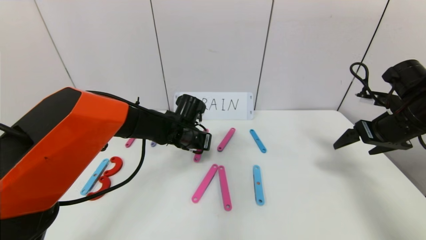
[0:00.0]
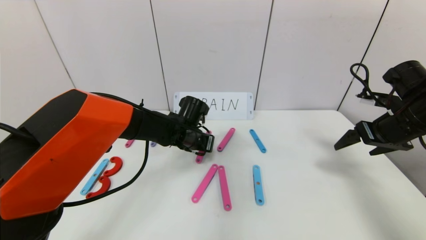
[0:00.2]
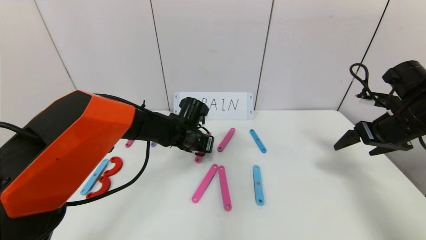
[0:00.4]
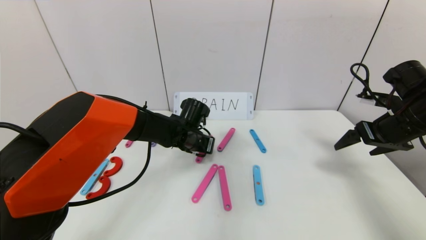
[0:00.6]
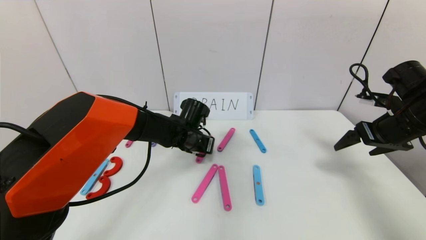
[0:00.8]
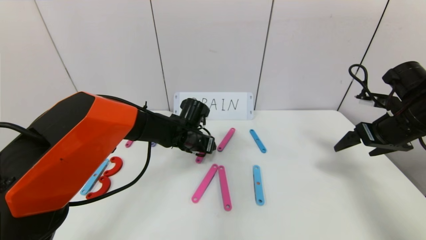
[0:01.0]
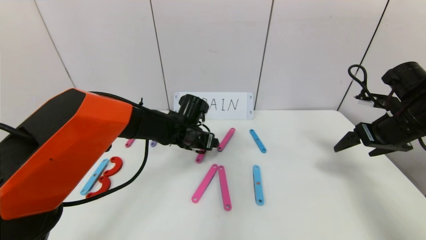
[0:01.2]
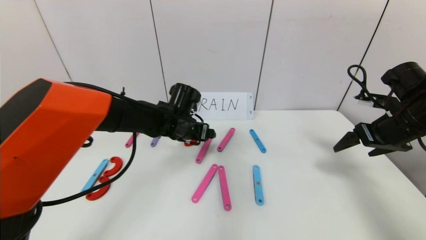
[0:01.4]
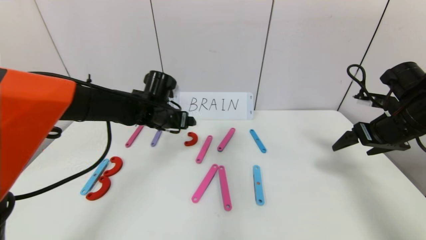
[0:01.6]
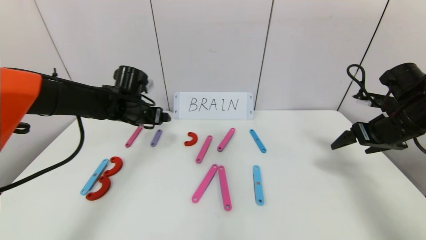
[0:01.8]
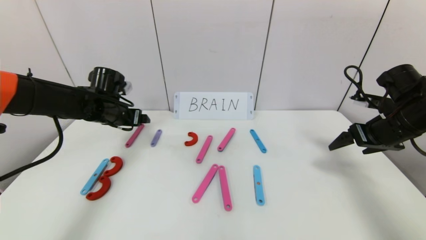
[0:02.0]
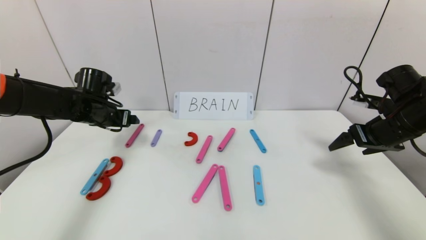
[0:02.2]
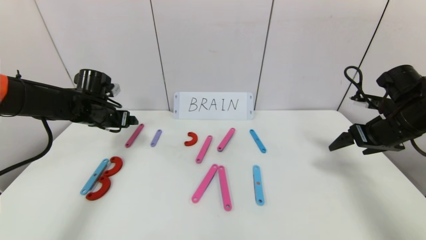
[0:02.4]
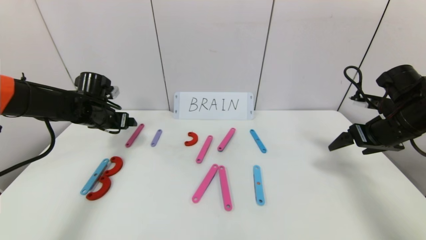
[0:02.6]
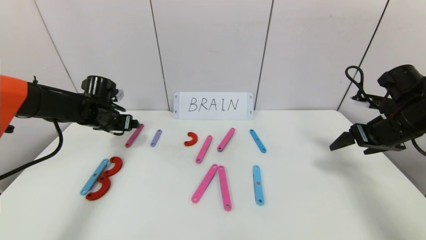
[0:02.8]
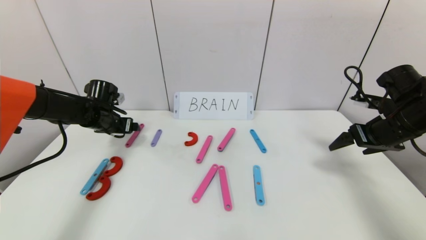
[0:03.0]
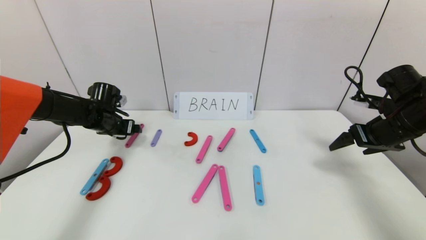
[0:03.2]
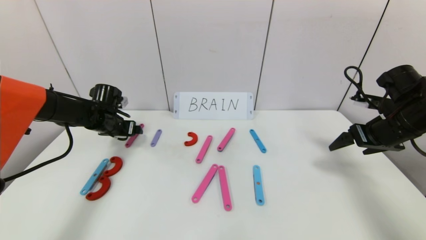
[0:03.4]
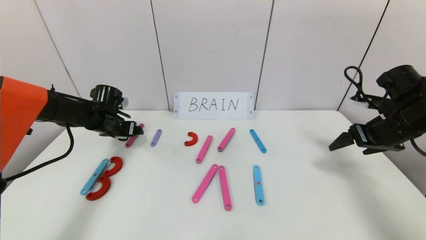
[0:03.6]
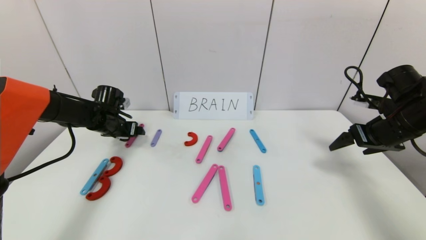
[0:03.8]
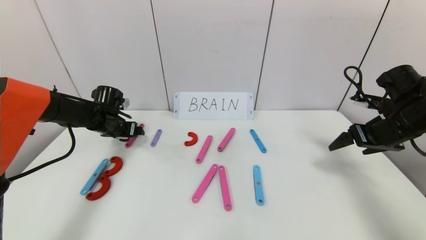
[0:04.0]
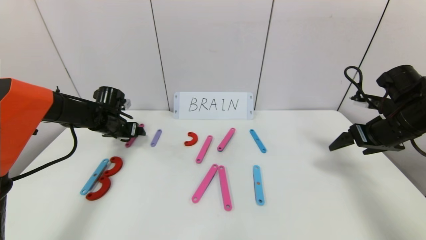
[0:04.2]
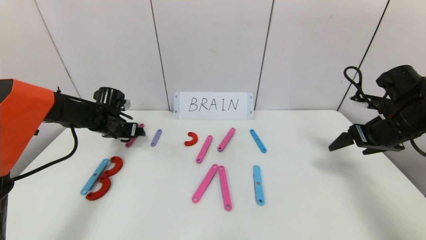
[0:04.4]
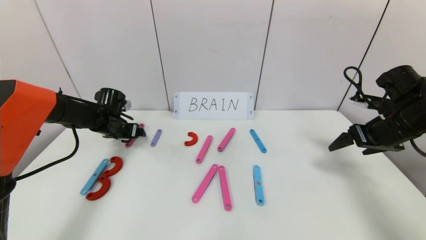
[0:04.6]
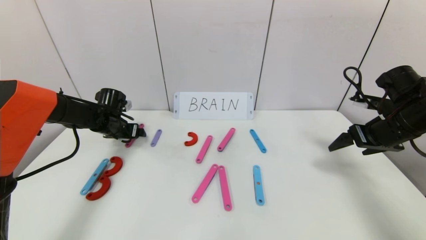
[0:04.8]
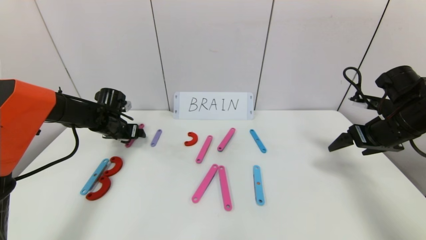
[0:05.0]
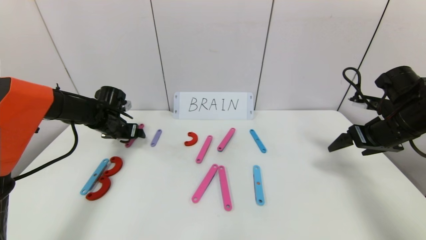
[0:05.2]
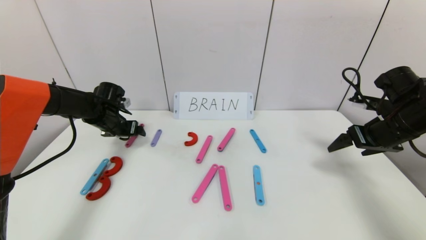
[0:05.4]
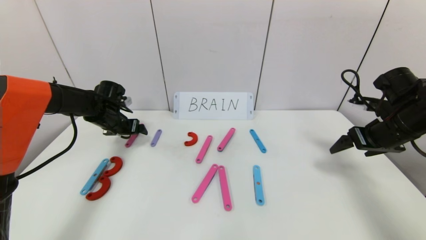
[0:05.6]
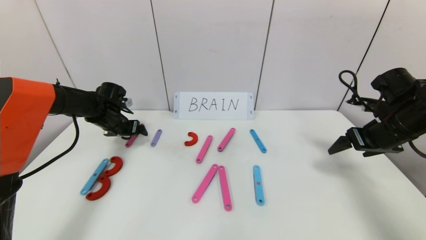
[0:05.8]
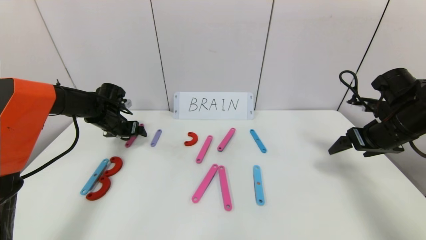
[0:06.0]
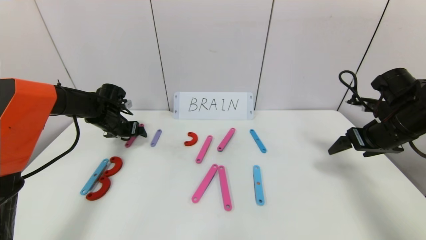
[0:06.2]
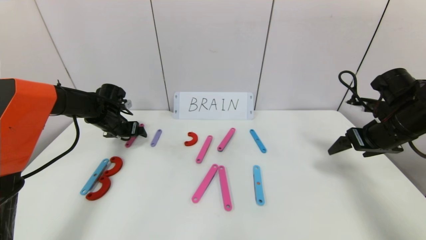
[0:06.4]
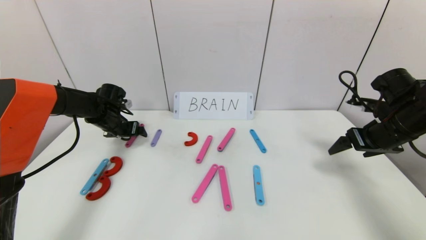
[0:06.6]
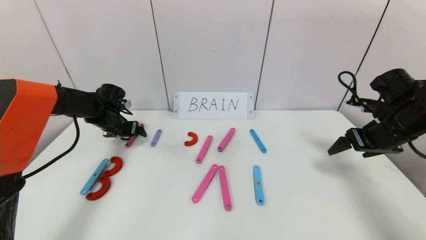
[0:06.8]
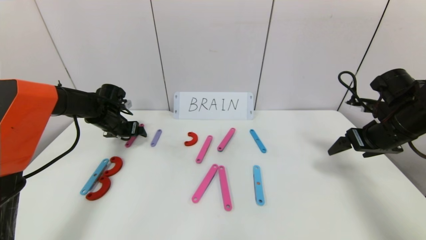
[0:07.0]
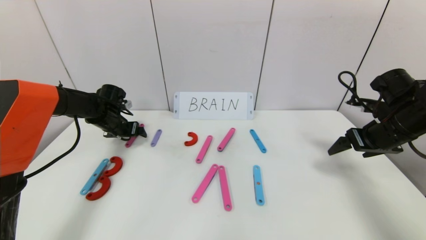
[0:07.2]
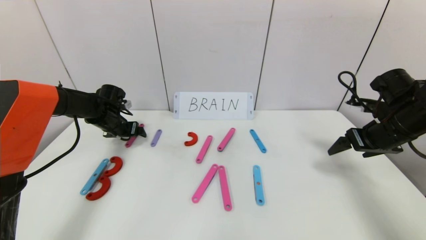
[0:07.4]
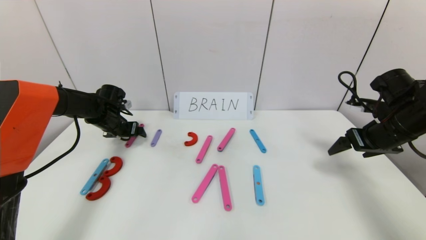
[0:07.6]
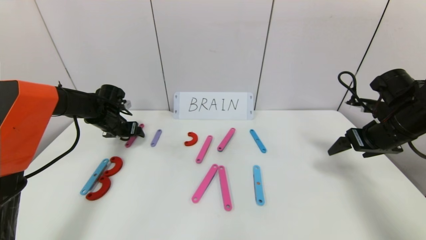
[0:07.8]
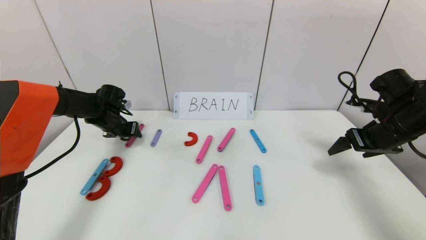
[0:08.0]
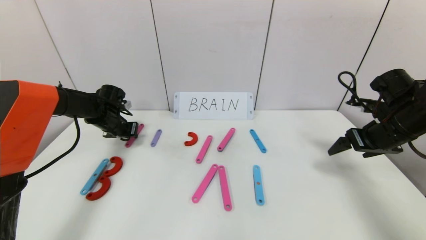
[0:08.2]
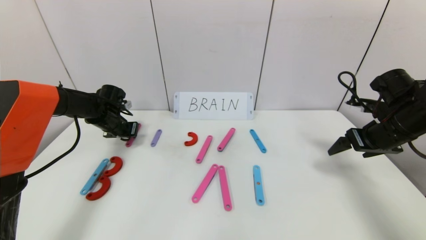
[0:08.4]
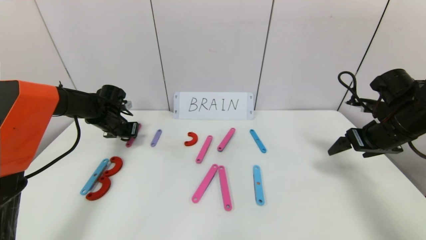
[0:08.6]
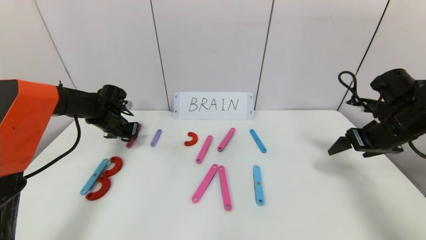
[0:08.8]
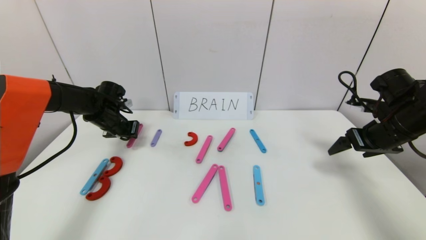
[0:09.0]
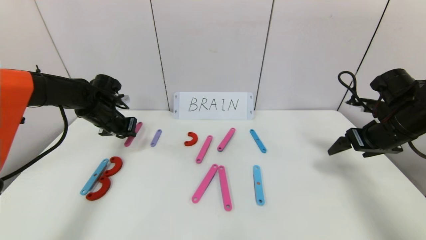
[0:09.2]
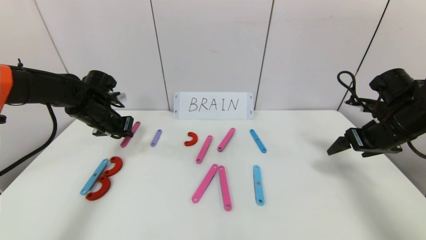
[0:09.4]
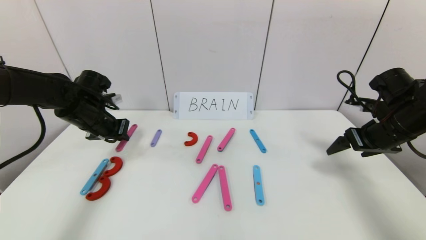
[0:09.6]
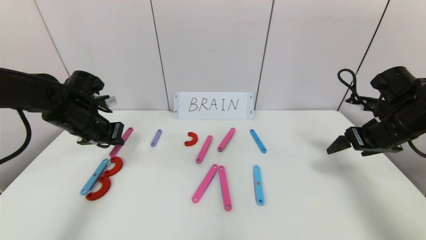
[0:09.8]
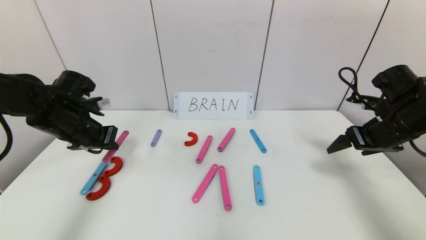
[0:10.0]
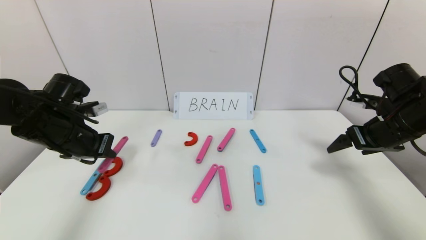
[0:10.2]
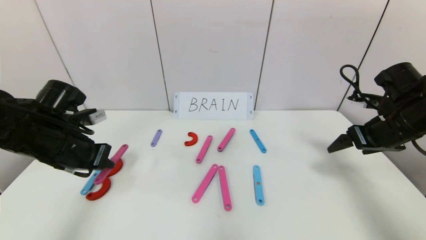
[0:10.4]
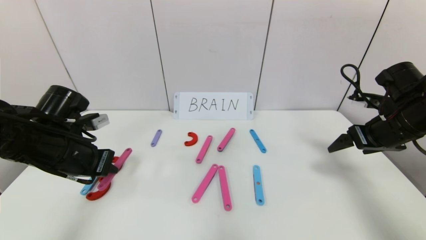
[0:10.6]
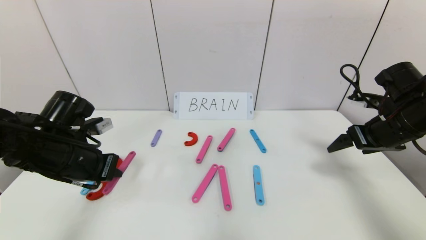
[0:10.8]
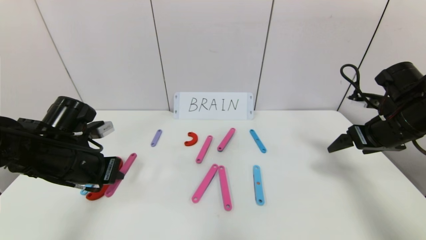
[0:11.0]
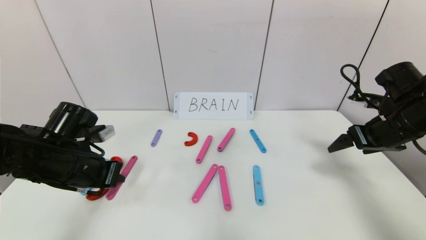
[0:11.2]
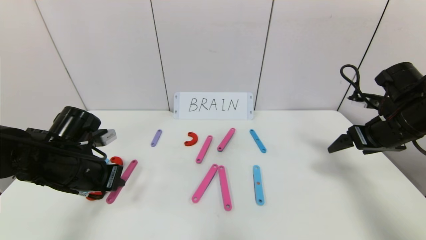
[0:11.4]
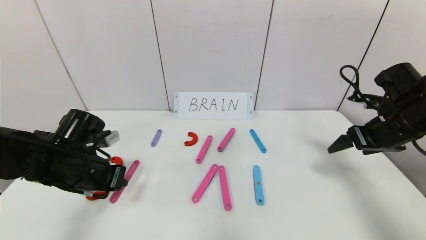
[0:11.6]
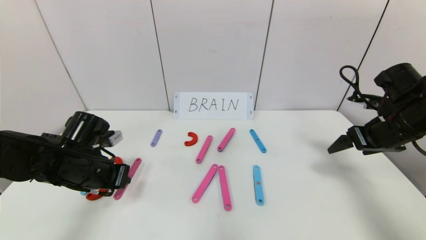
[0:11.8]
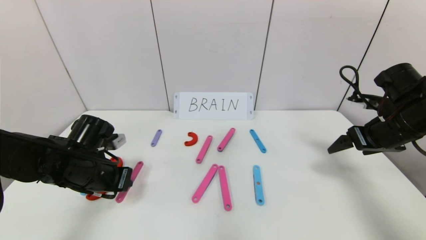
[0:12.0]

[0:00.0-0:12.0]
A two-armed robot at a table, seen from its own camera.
Task of the whole recording: rearrange the word baai as brain.
0:00.0 to 0:01.6: The left gripper goes some 10 cm to the left and upward, and opens.
0:01.6 to 0:03.0: The left gripper moves to the left, some 15 cm.
0:03.0 to 0:06.0: There are only small adjustments of the grippers.
0:06.0 to 0:07.6: Neither gripper changes place.
0:07.6 to 0:09.0: The left gripper closes.
0:09.0 to 0:10.4: The left gripper heads backward, covering some 20 cm.
0:10.4 to 0:12.0: The left gripper travels downward by about 5 cm.

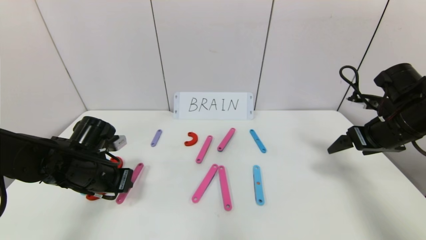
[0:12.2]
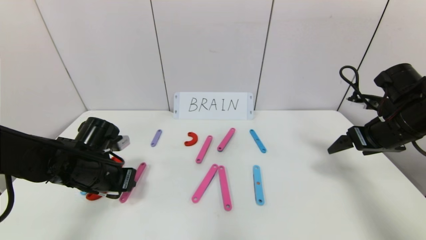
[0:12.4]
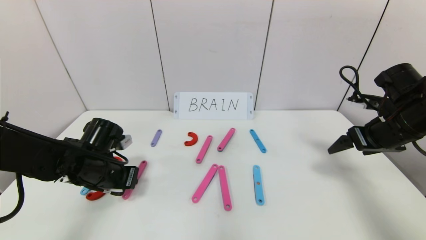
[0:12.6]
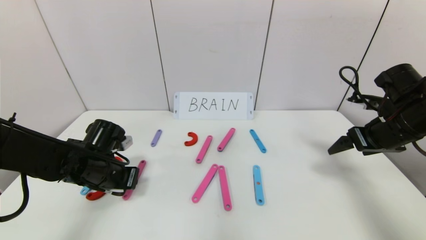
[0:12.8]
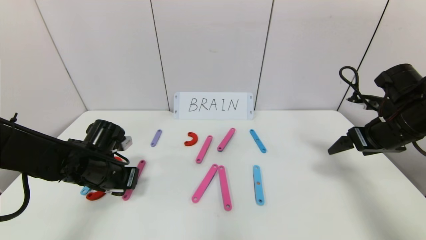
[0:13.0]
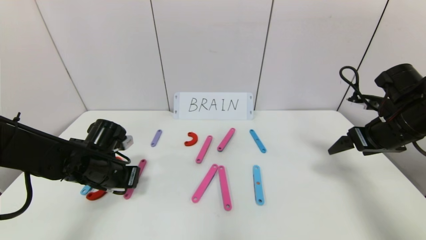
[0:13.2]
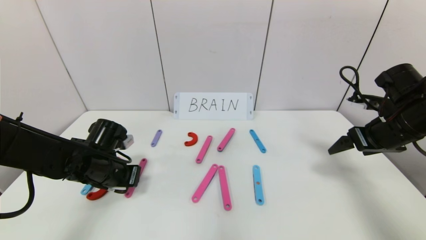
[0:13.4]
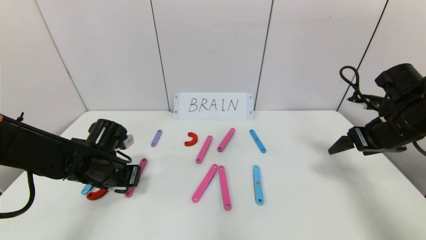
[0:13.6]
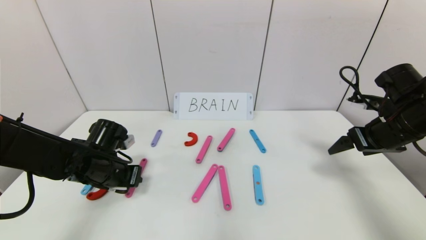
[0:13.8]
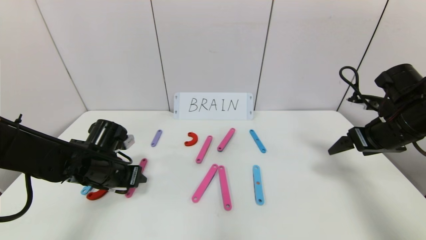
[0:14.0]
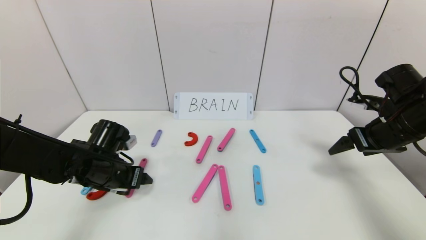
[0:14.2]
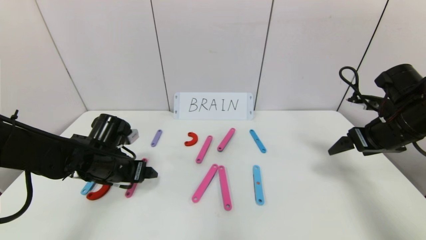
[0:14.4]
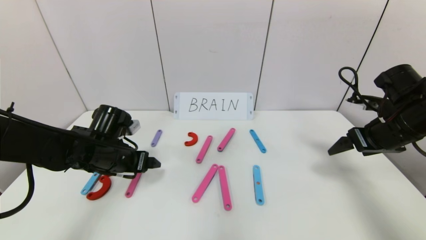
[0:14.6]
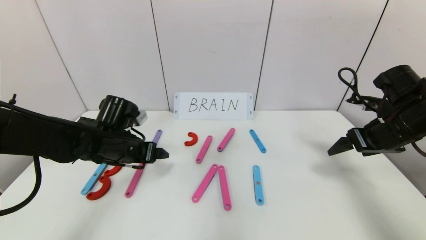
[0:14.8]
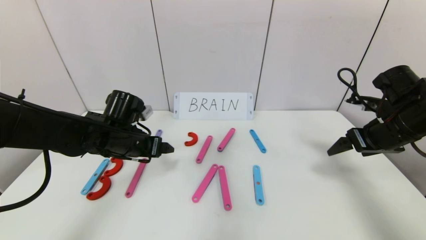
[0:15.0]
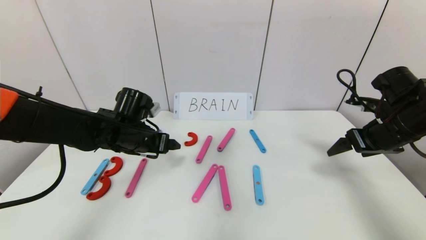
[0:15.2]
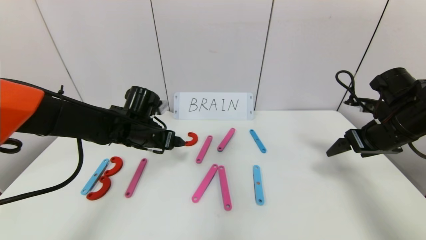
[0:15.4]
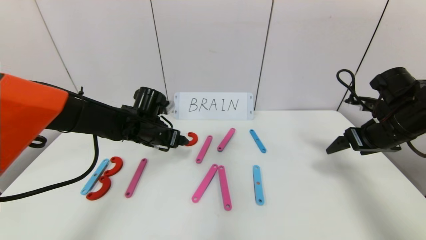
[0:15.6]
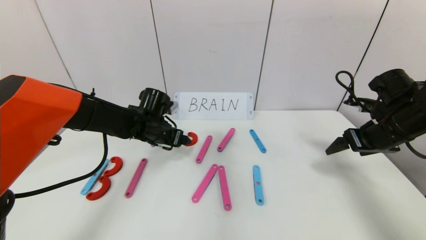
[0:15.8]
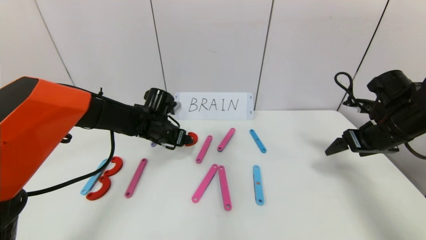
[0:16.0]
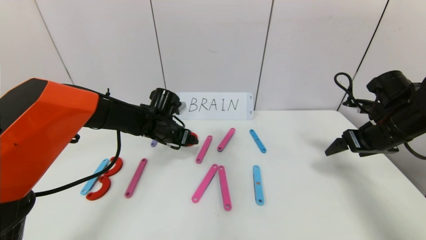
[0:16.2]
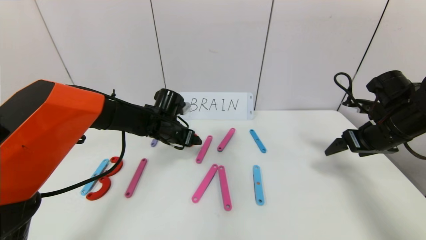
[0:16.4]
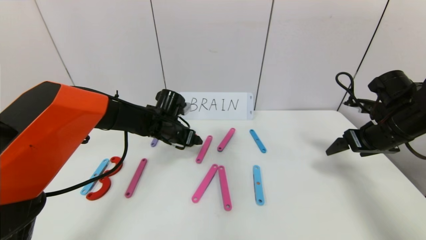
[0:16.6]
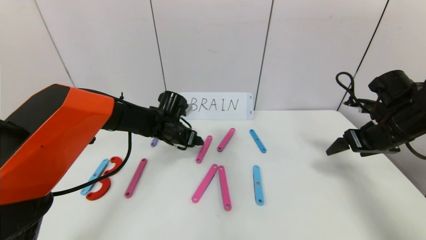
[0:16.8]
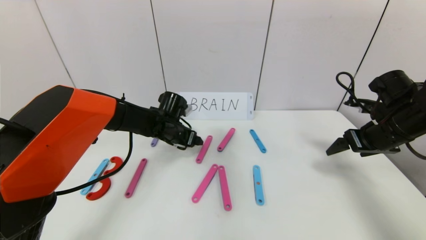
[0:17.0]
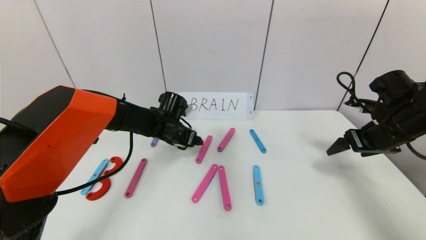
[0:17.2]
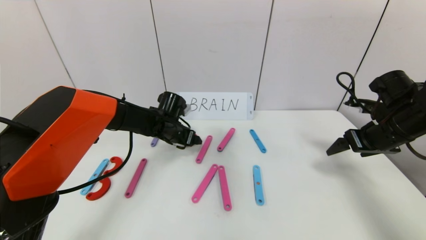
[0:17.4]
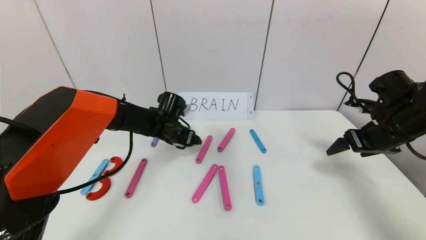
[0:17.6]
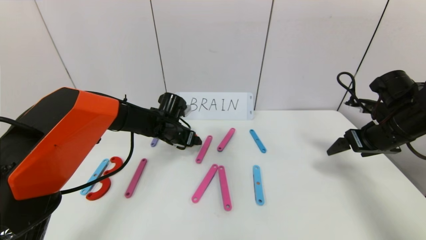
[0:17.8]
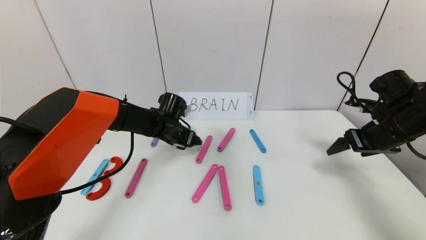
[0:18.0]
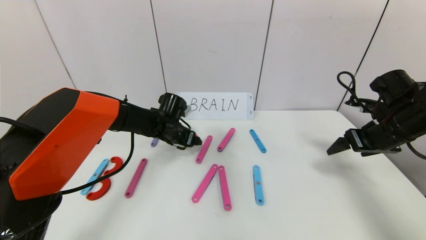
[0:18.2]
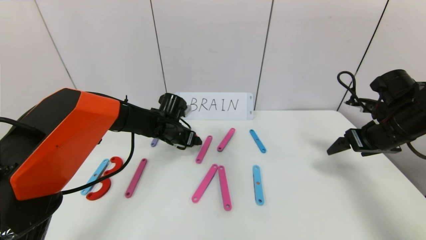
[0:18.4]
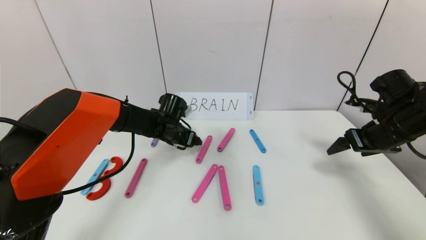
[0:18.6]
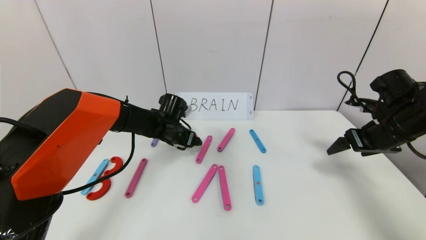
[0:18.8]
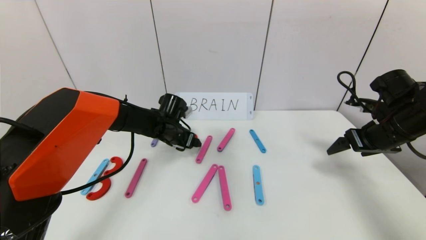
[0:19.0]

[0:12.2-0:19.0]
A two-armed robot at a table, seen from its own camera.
Task of the whole recording: rearrange the word baai as brain.
0:12.2 to 0:13.6: The grippers move only a little.
0:13.6 to 0:15.0: The left gripper is displaced upward by approximately 5 cm, and opens.
0:15.0 to 0:16.2: The left gripper shifts some 10 cm forward and to the right.
0:16.2 to 0:17.6: The grippers move only a little.
0:17.6 to 0:19.0: Both grippers stay about where they are.
